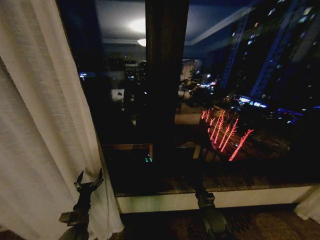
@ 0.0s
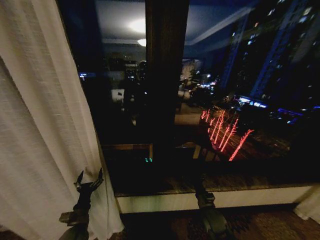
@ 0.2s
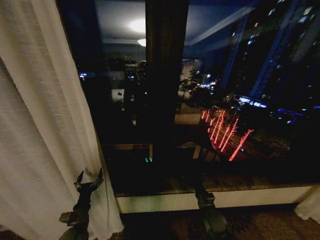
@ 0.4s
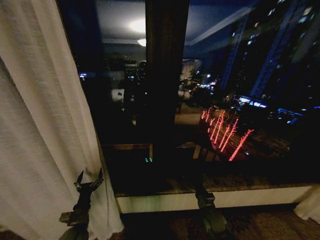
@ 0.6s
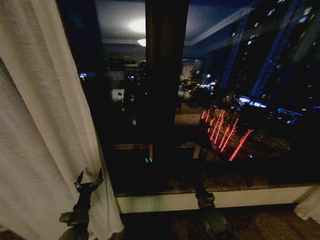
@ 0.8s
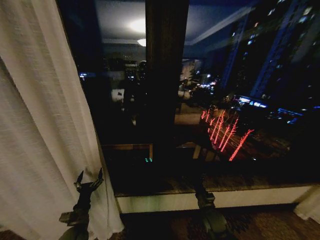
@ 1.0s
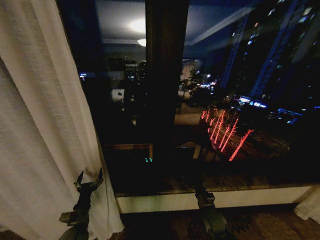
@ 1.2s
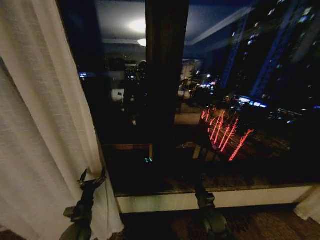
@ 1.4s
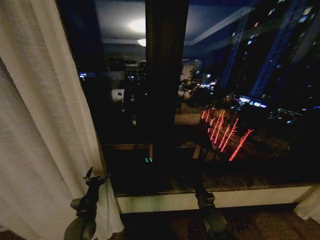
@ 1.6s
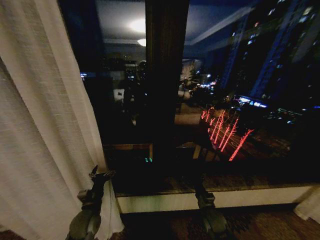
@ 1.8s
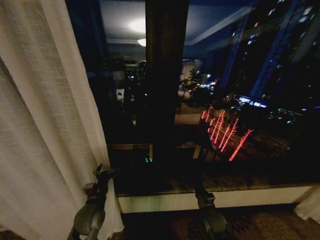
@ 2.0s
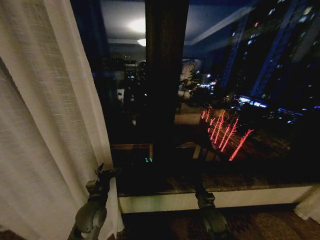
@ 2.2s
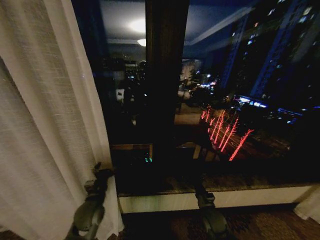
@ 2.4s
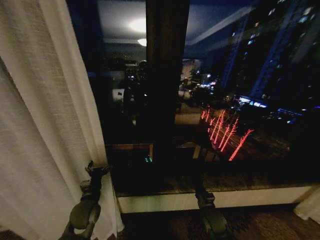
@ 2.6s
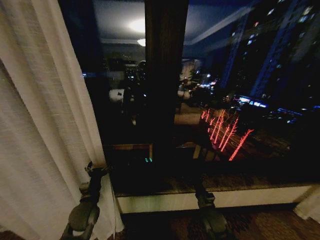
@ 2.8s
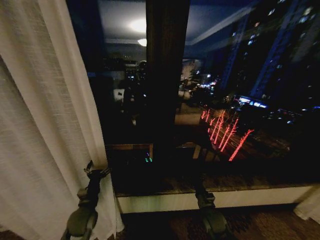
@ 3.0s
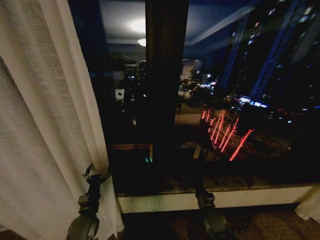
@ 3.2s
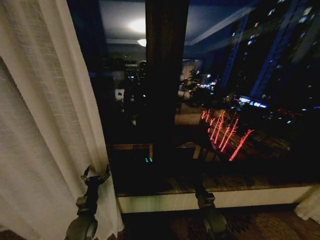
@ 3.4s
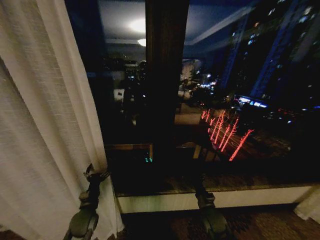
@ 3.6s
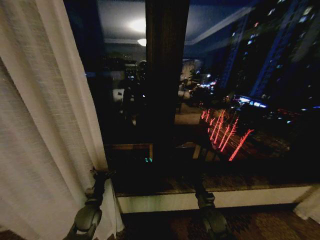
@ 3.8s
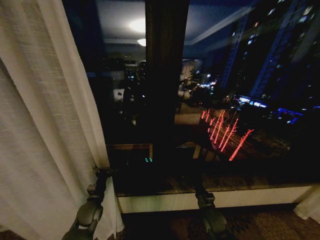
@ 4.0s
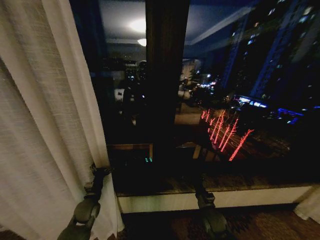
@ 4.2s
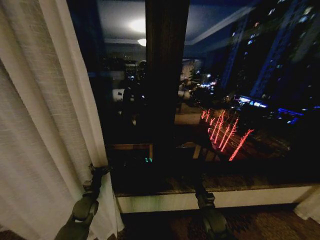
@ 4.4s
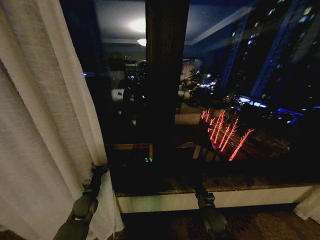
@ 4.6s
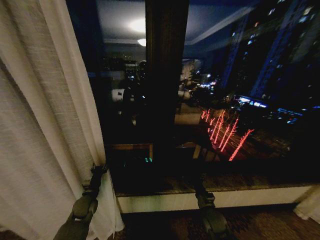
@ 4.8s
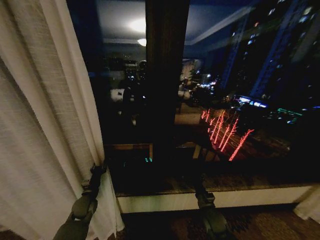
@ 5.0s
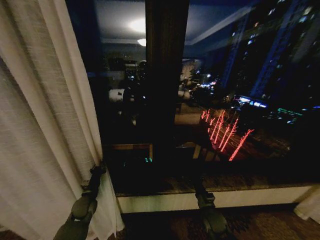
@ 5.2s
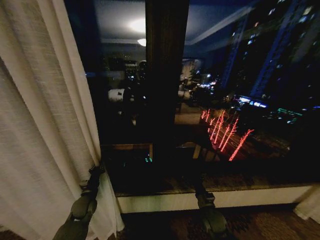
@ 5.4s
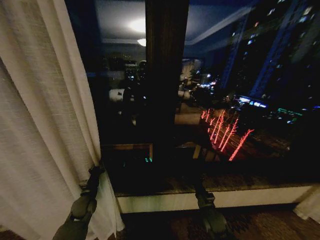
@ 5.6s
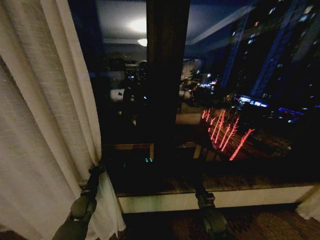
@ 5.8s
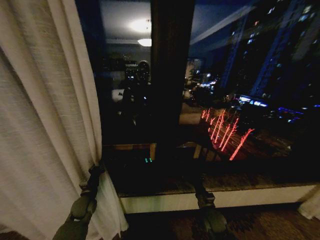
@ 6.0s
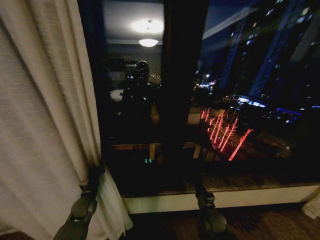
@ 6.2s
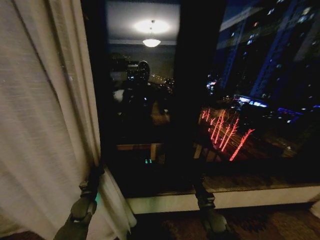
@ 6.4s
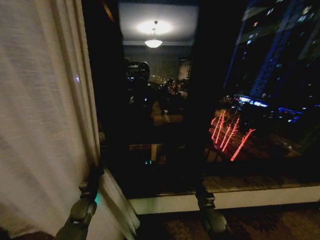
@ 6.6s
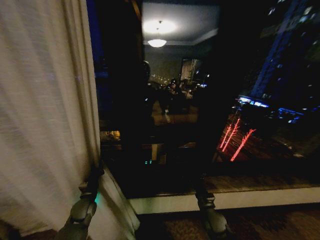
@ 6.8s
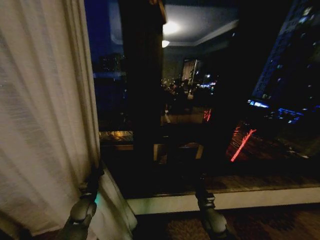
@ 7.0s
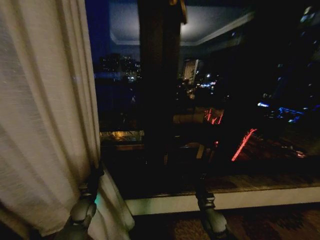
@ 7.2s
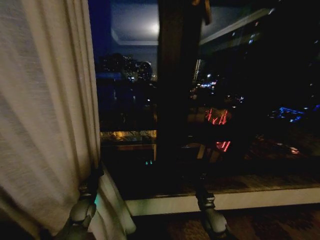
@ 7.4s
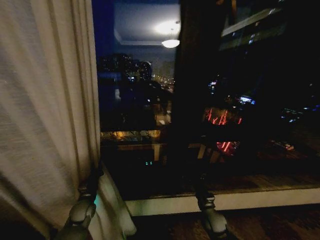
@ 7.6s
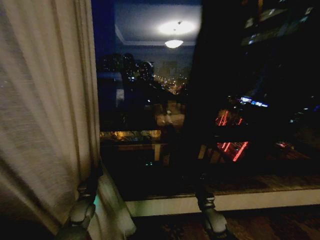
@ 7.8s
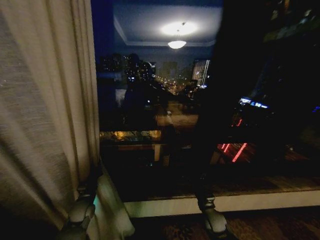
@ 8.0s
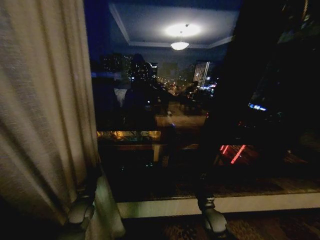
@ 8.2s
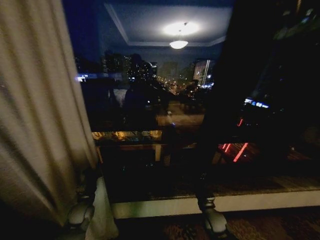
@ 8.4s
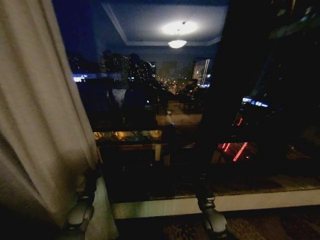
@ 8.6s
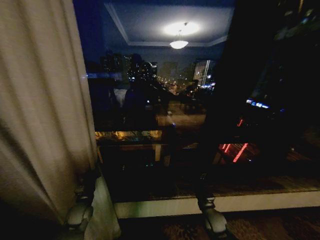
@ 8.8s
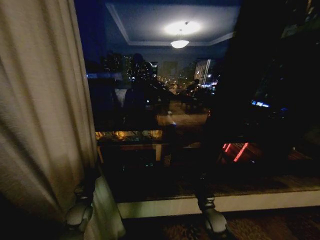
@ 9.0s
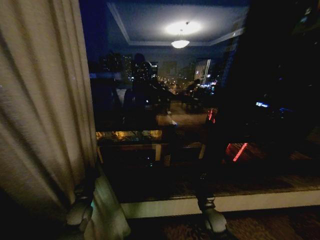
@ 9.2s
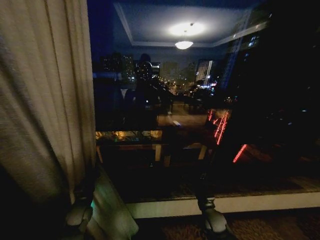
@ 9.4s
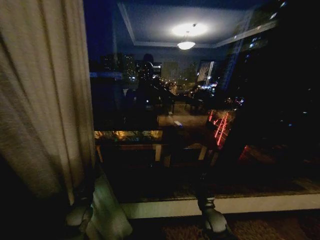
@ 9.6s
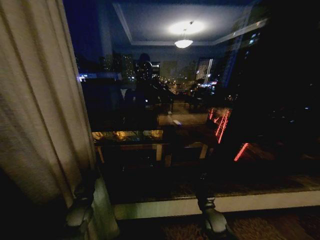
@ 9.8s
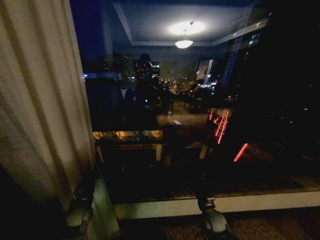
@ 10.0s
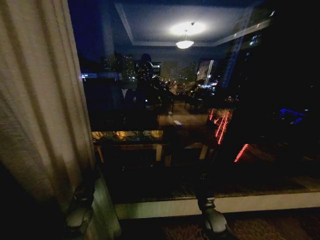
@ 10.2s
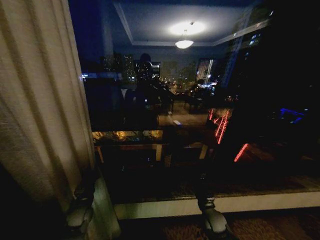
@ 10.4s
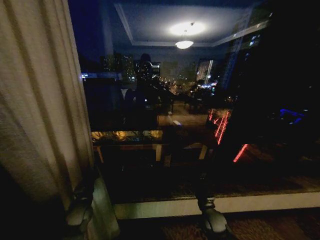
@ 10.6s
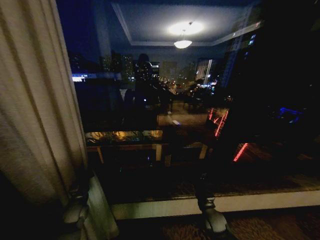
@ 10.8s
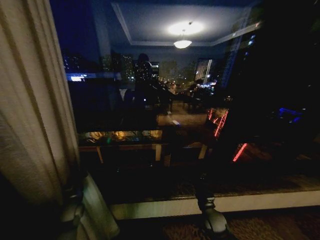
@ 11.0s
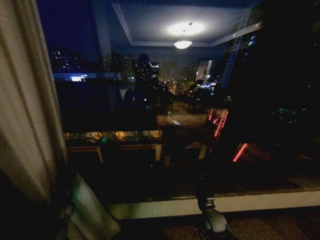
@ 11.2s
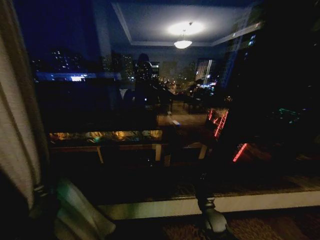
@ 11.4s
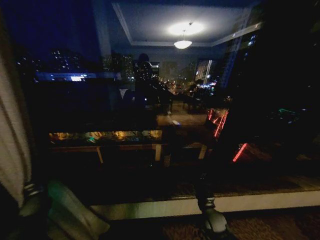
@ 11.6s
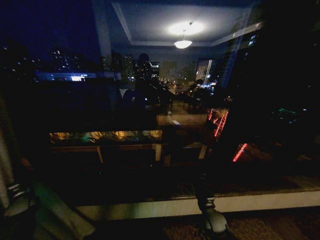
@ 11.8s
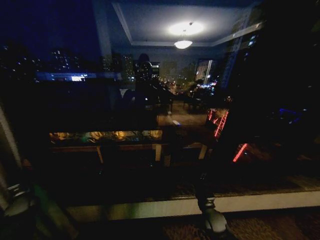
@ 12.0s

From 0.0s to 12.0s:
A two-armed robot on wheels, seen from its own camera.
Task of the whole recording: Open the curtains by pulling them apart, changing their state from closed to fully open.
From 0.0s to 1.6s: The left gripper changes place by roughly 5 cm.
From 3.0s to 4.4s: The left gripper heads forward, covering about 5 cm.
From 4.4s to 6.0s: The left gripper closes up.
From 9.0s to 10.4s: Both grippers stay about where they are.
From 10.4s to 12.0s: The left gripper goes approximately 25 cm to the left.

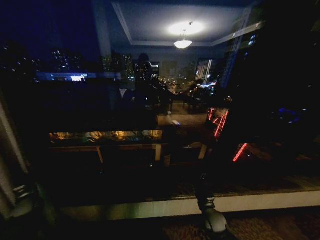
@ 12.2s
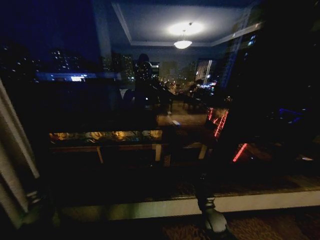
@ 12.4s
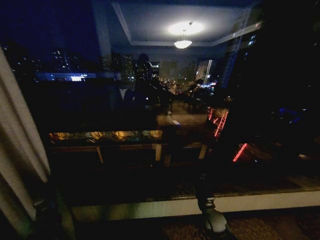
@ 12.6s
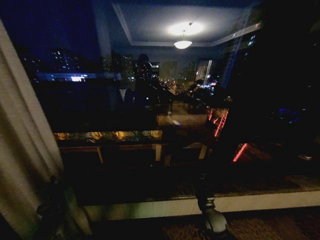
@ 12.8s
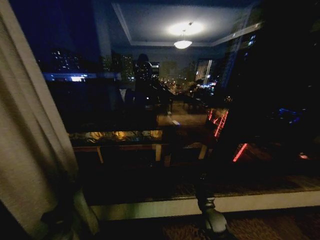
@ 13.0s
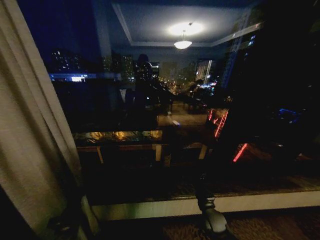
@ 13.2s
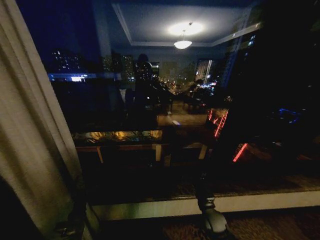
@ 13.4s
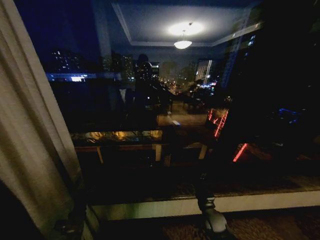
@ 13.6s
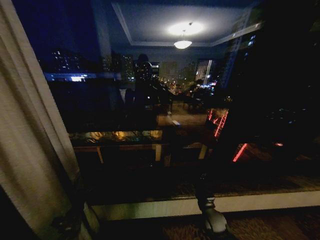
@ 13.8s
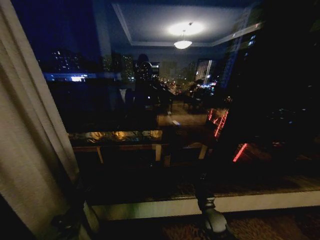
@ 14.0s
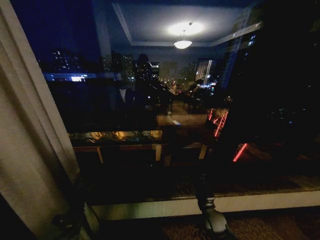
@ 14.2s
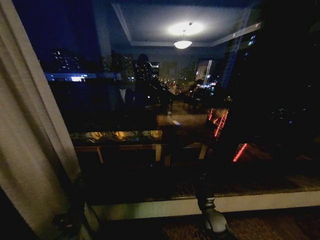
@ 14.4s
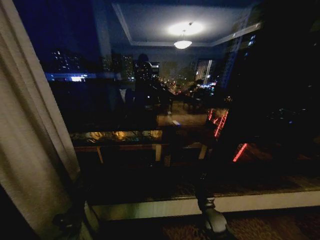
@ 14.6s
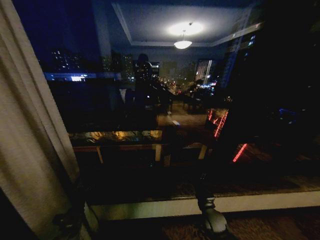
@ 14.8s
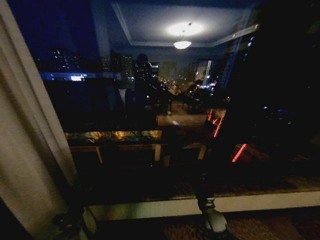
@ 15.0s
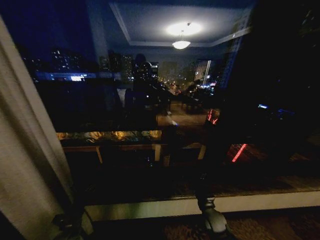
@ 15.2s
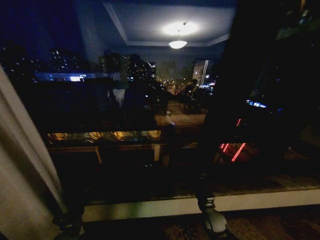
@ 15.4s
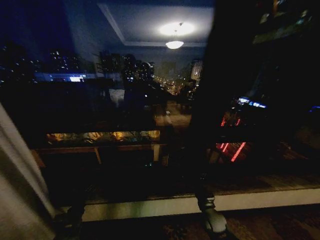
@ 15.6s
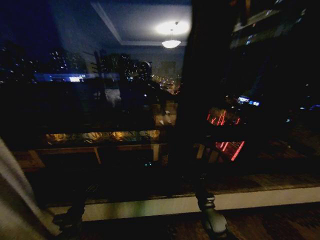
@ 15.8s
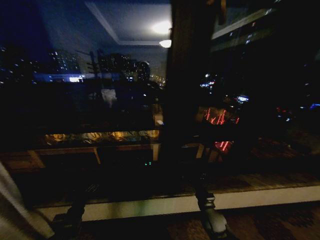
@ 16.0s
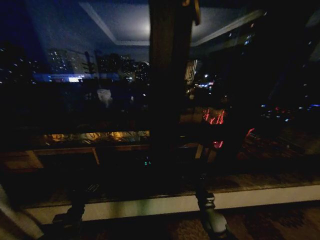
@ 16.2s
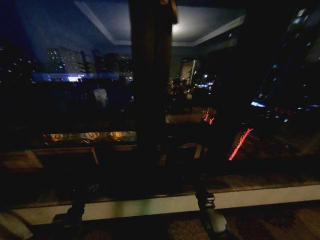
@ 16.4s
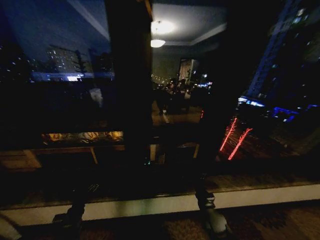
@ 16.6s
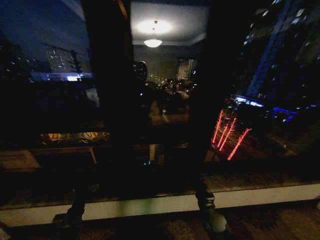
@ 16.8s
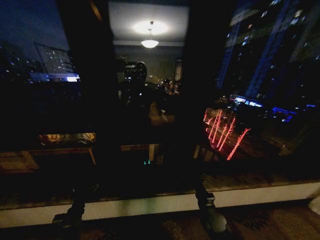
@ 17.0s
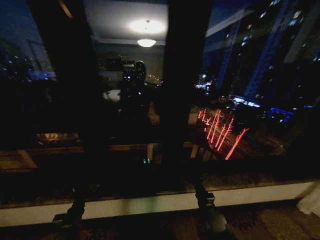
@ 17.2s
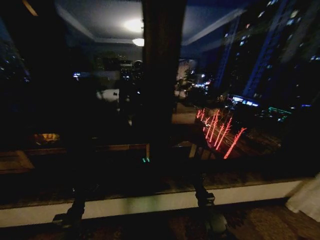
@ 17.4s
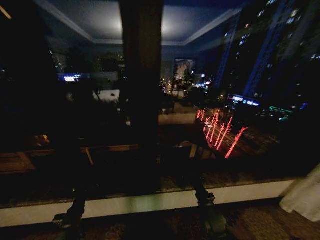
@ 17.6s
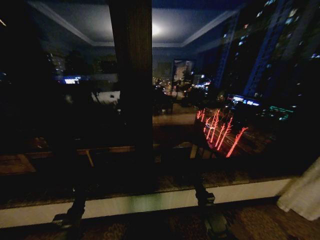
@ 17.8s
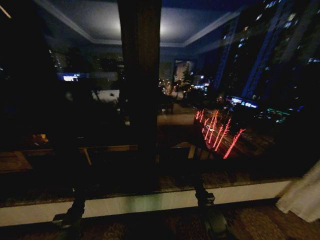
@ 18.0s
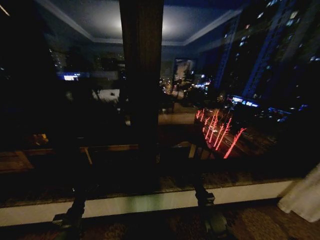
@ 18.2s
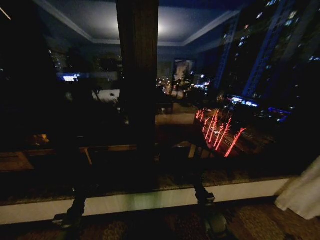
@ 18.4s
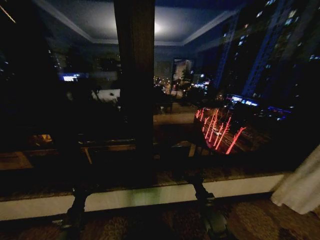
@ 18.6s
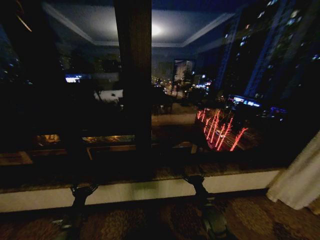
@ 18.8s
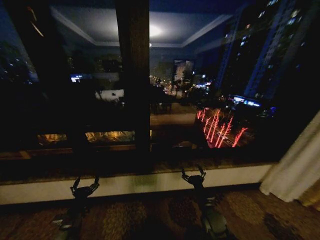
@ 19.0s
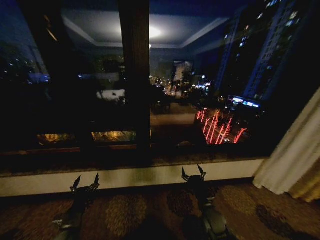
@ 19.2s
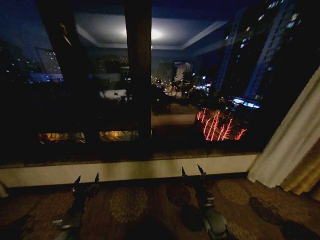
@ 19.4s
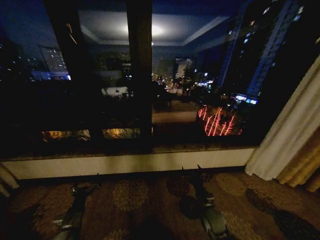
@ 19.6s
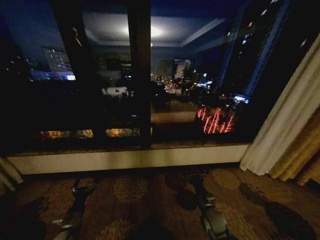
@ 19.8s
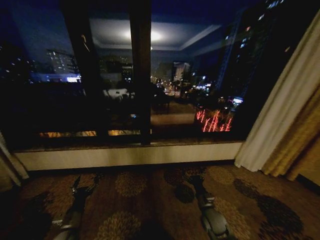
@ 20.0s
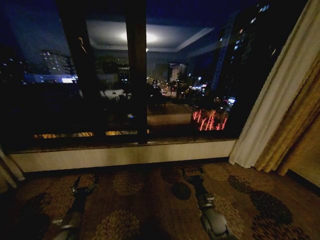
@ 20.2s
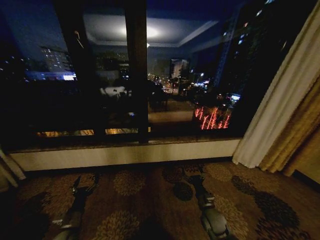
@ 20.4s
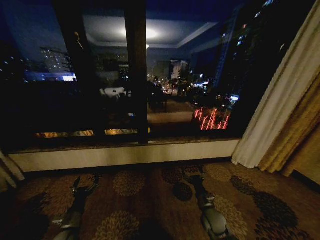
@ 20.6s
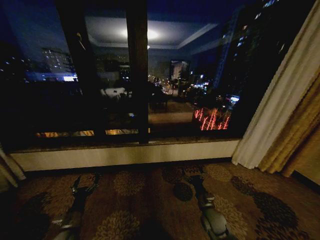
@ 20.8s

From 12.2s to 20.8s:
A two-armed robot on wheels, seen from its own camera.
Task of the whole recording: Open the curtains by pulling them apart, changing their state from closed to fully open.
From 12.2s to 13.6s: The left gripper goes about 30 cm to the right and backward, and opens.
From 13.6s to 15.0s: The grippers move only a little.
